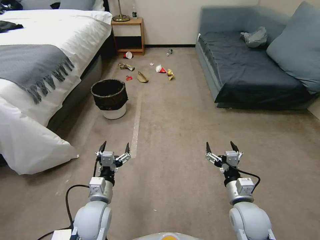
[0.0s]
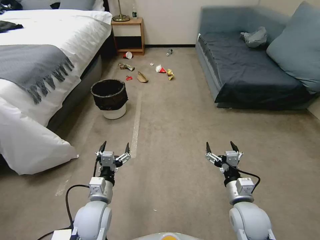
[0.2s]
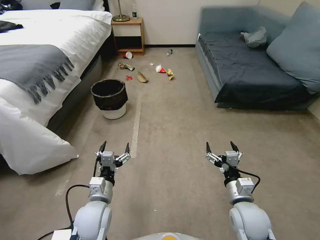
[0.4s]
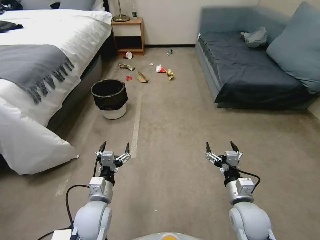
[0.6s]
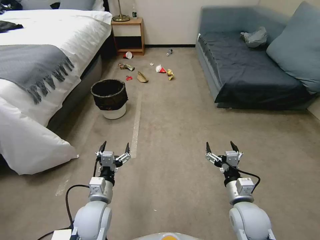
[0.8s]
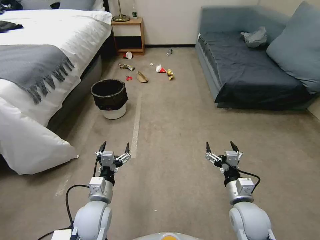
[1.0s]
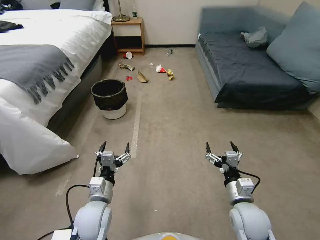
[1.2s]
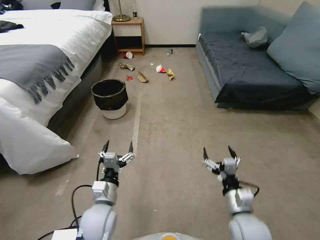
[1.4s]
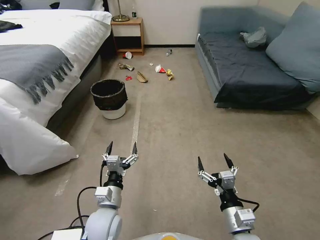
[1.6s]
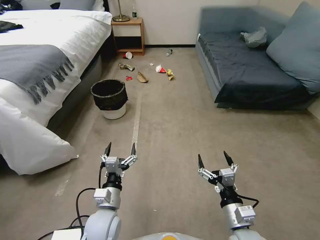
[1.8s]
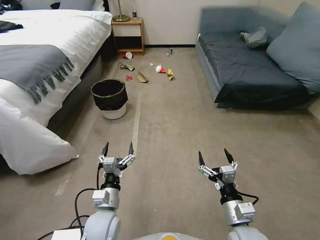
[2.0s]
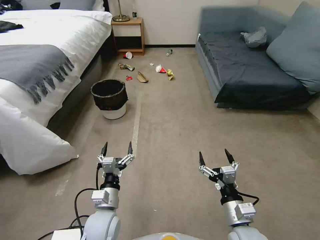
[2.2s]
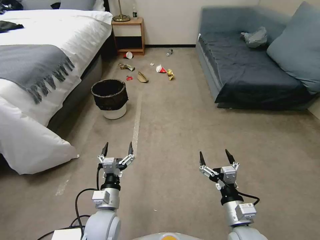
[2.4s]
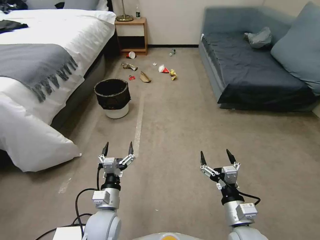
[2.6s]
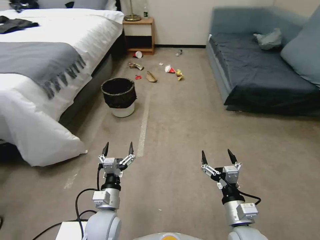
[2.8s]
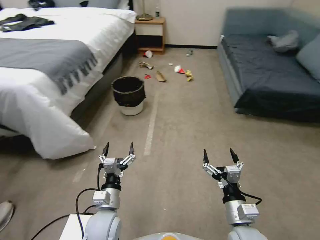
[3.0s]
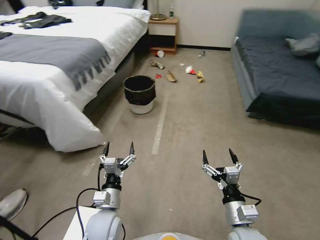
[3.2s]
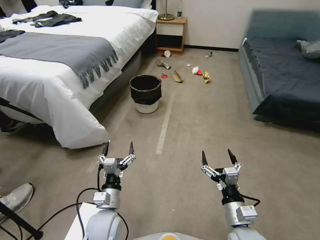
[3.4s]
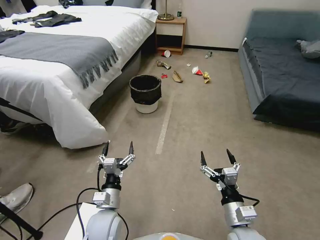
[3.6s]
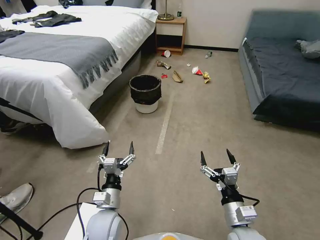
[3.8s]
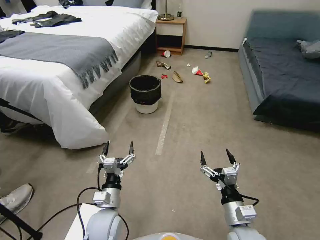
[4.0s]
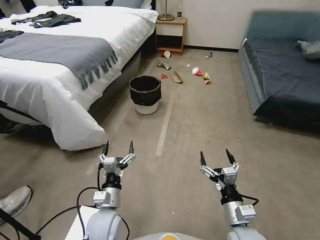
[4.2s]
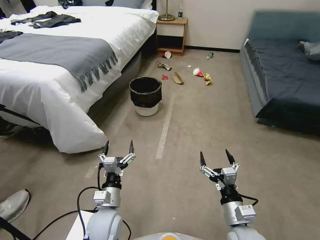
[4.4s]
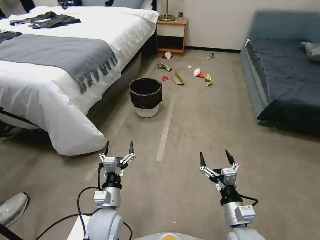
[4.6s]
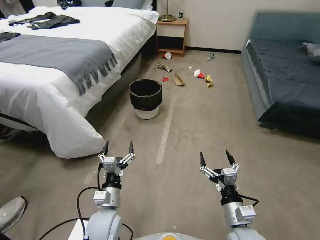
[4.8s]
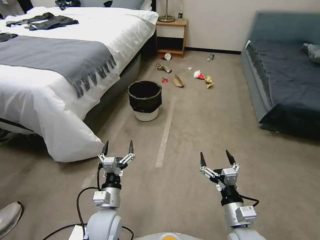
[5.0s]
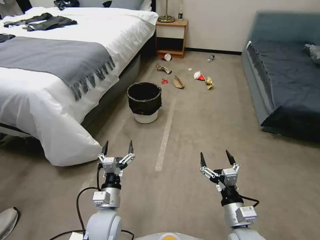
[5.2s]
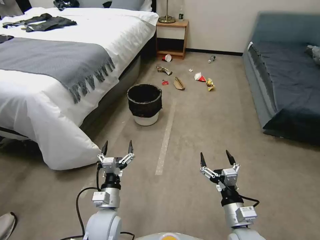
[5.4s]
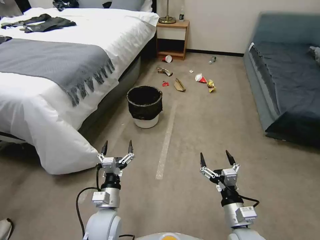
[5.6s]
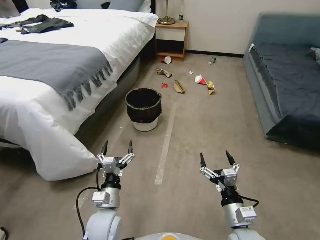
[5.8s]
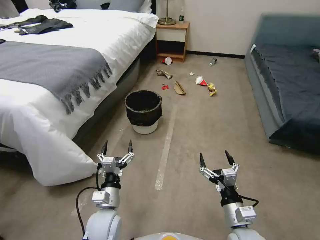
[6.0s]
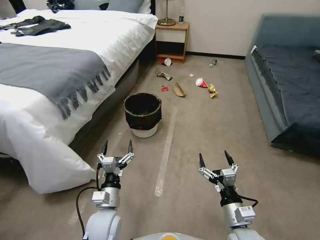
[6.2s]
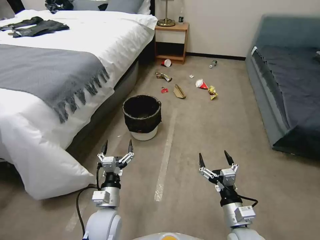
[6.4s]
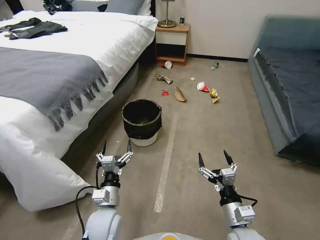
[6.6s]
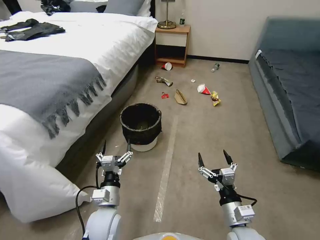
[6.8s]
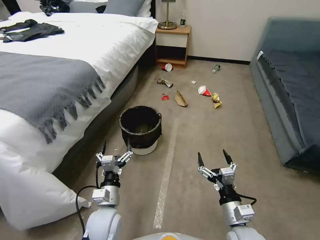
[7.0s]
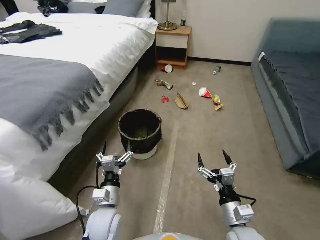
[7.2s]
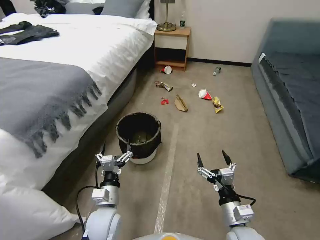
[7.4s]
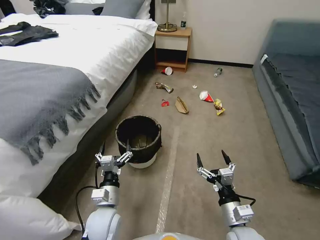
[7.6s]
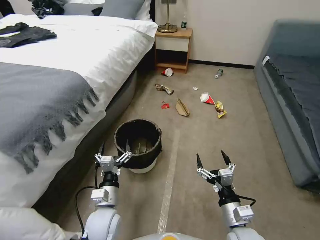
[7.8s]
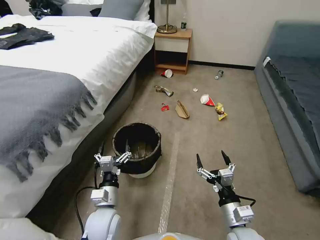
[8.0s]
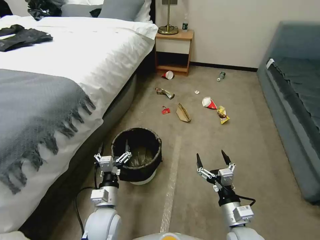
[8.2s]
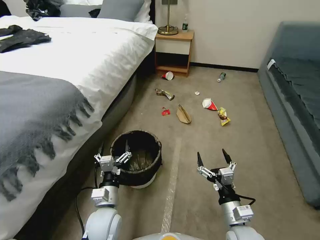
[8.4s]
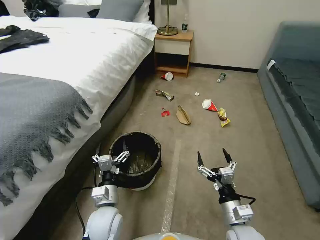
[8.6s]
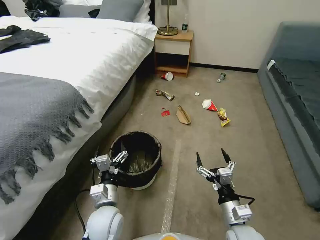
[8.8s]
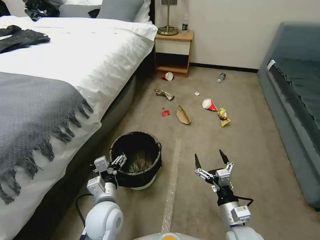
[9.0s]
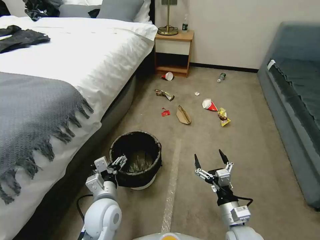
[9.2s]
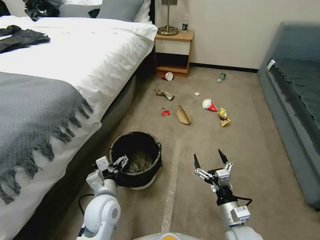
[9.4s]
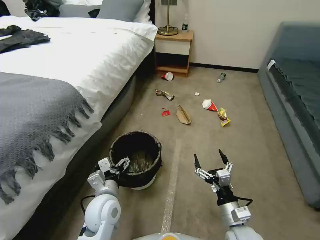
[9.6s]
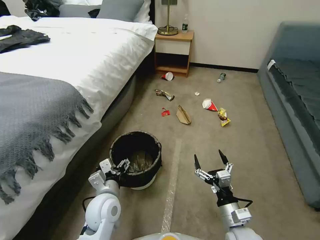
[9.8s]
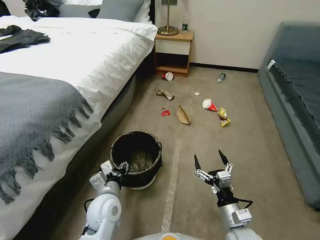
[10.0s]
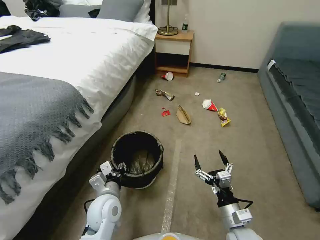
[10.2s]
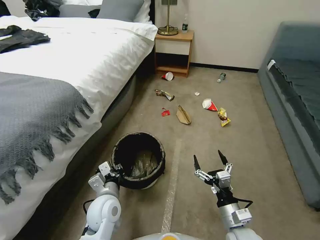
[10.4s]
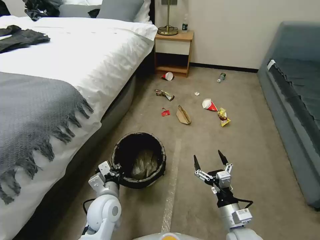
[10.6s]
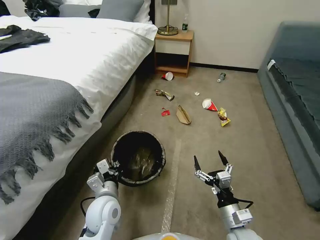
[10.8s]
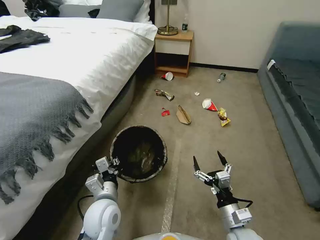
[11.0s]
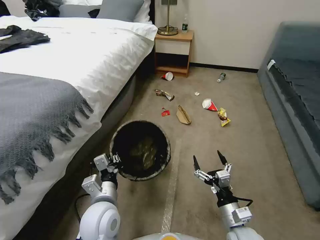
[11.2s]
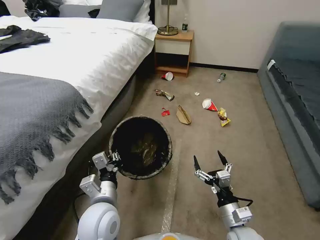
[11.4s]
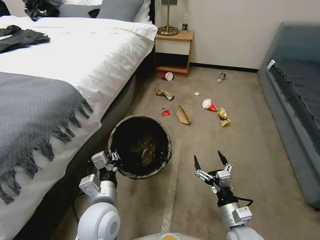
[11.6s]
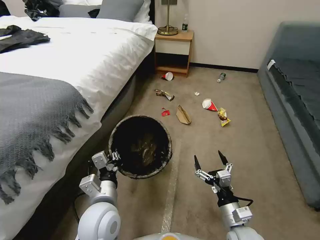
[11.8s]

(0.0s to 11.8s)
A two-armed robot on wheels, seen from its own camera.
Task of the whole recording: Pick up the trash can from the floor.
8.8s - 10.4s: The left gripper closes up.
10.4s - 11.8s: The left gripper moves upward, about 5 cm.

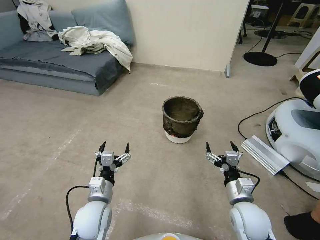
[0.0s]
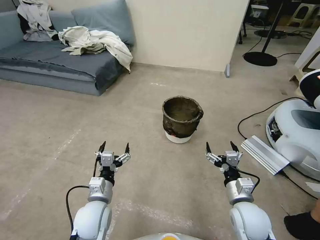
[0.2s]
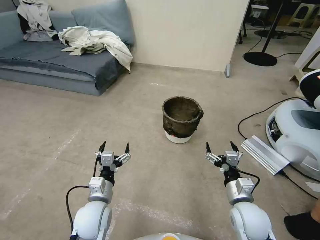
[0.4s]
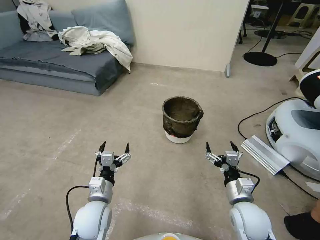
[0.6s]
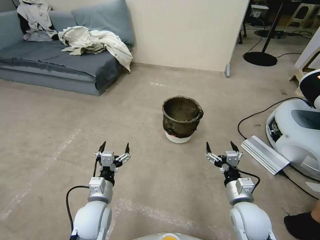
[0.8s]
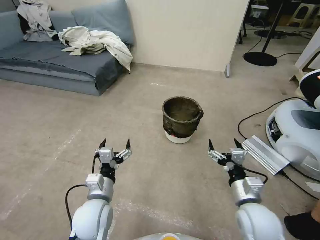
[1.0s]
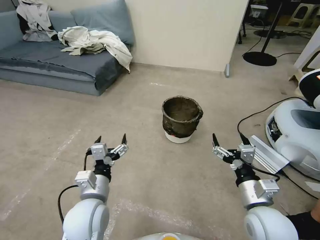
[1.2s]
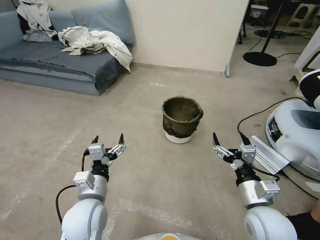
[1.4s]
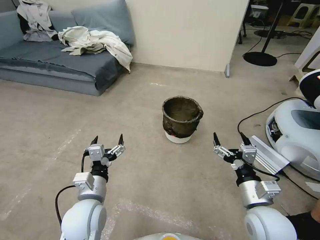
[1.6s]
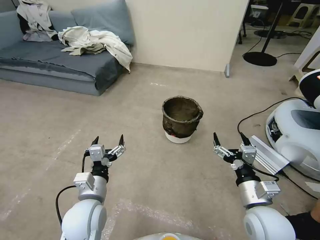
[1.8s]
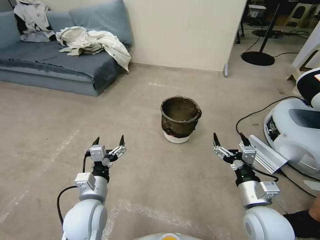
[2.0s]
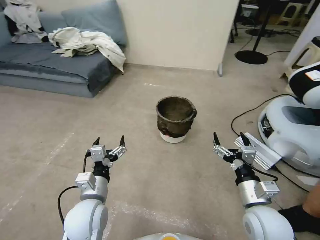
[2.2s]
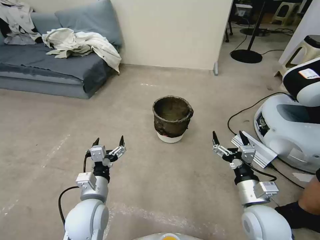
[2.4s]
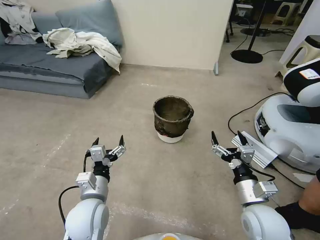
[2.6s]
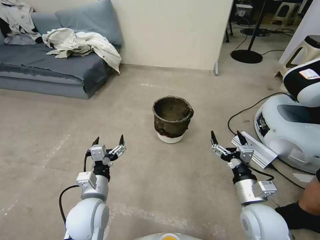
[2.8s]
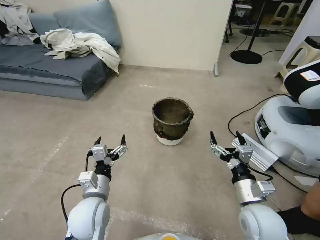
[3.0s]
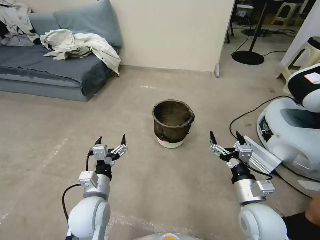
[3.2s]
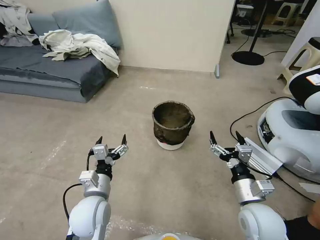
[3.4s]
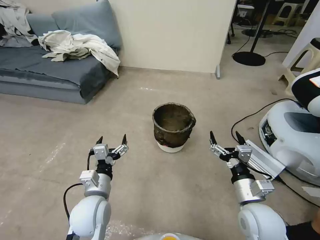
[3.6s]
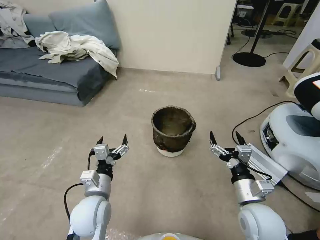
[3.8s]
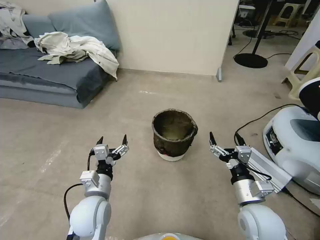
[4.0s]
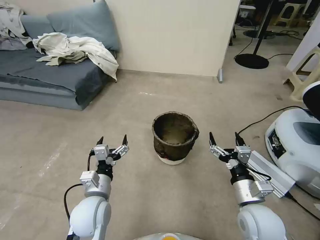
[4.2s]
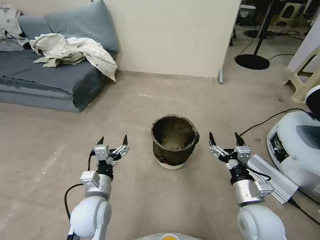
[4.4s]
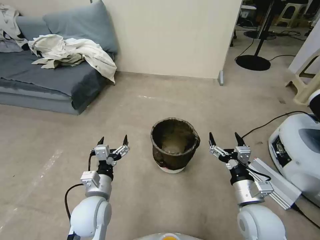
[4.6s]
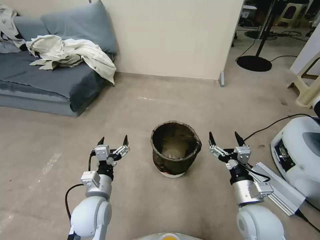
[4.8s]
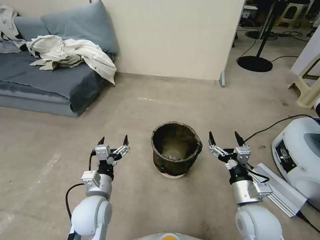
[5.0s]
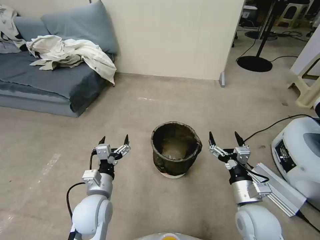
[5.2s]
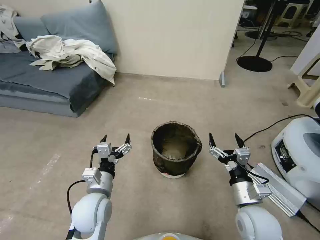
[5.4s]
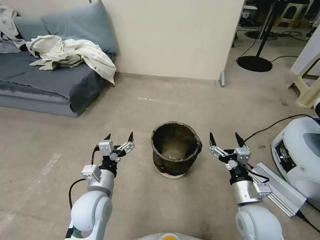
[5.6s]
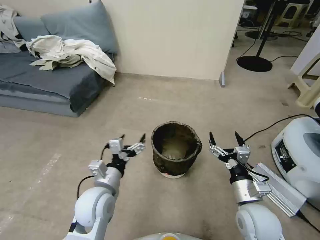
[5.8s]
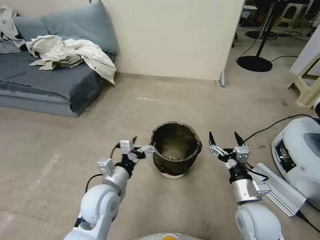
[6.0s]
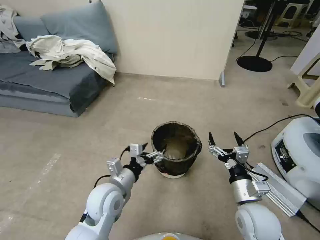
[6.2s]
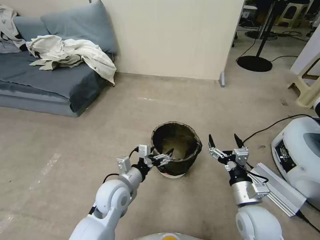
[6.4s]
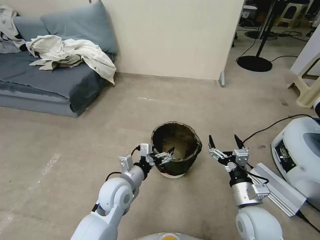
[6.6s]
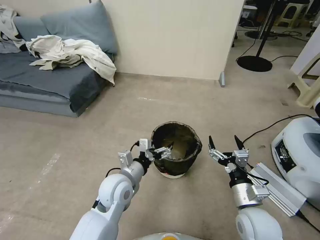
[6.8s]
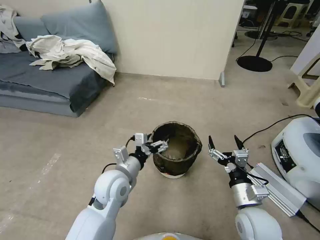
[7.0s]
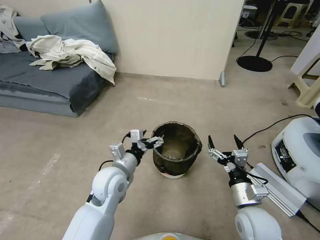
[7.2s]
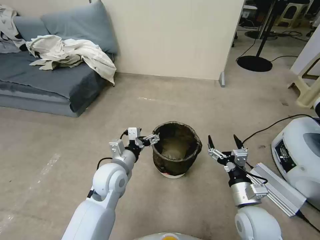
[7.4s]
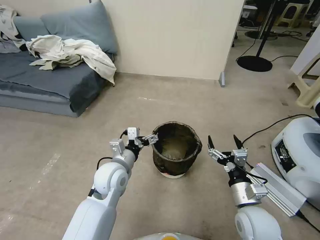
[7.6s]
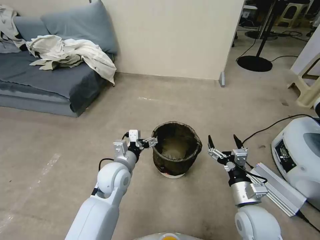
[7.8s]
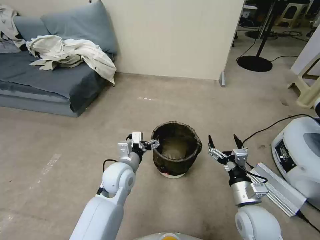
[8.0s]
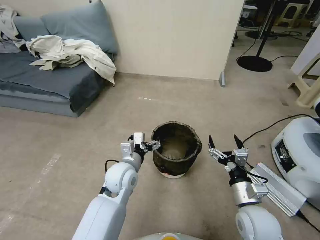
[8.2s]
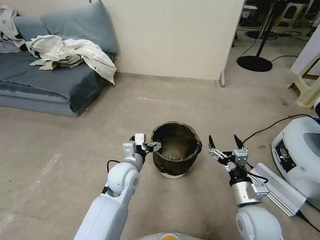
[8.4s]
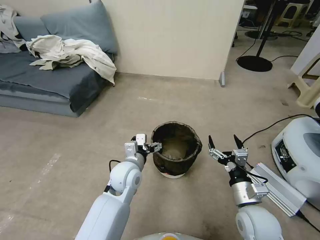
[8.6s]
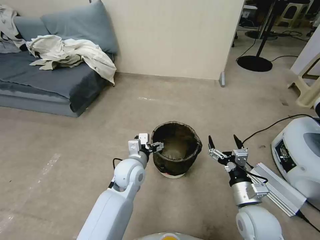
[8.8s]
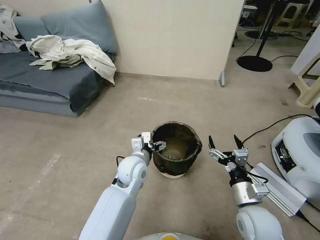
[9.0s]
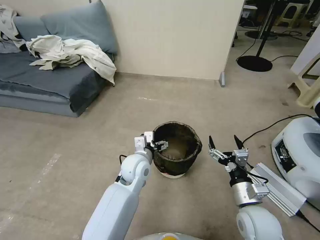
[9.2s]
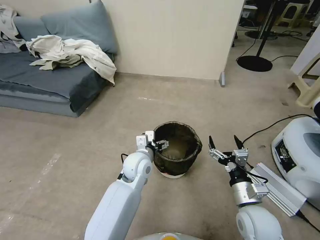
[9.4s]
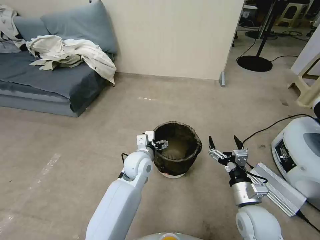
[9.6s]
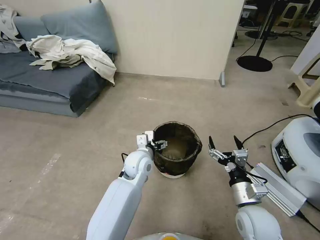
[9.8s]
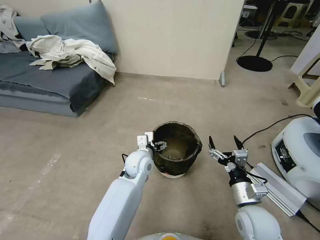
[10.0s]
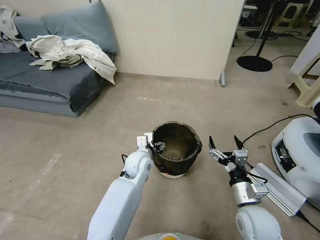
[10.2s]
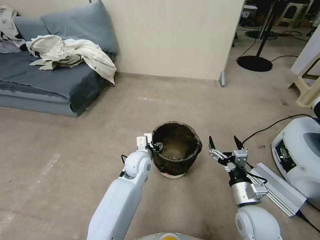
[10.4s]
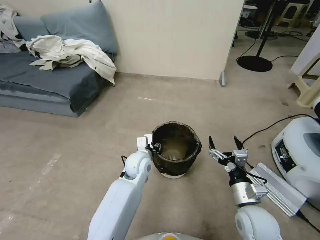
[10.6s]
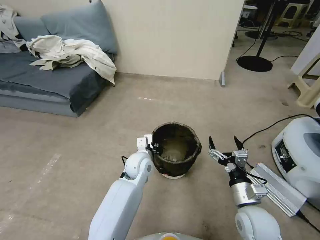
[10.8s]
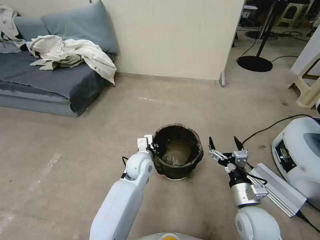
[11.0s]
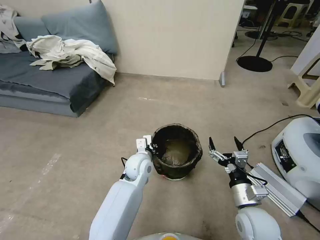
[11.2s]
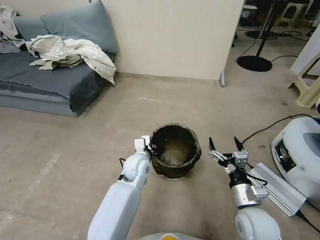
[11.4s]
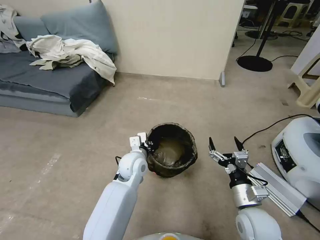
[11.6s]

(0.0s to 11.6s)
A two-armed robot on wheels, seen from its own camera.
Task of the whole recording: Pick up the trash can from the floor.
5.8s - 7.2s: The left gripper goes about 5 cm forward.
7.2s - 8.8s: The left gripper shifts by some 5 cm.
8.8s - 10.2s: The left gripper moves about 5 cm.
10.2s - 11.6s: The left gripper closes.
